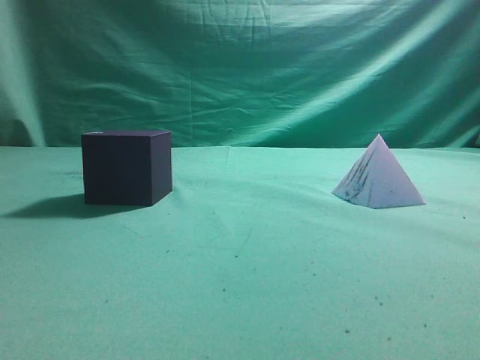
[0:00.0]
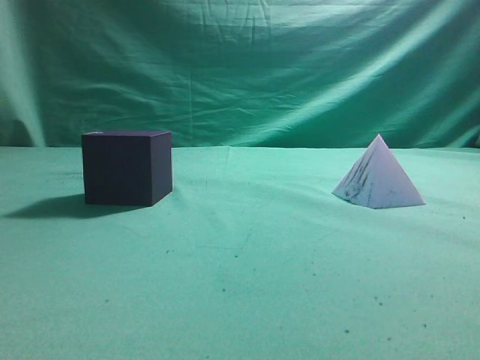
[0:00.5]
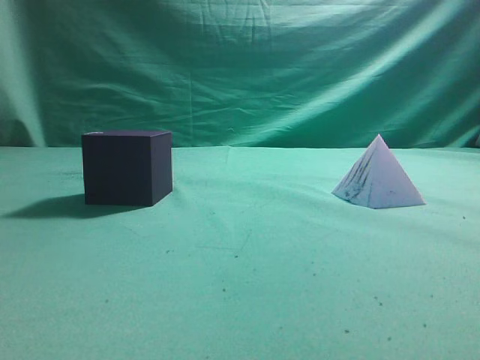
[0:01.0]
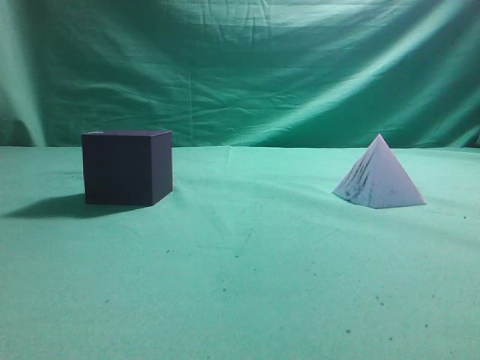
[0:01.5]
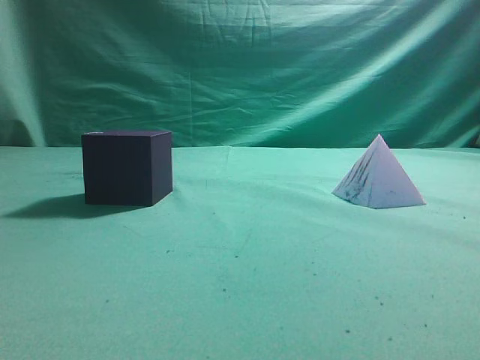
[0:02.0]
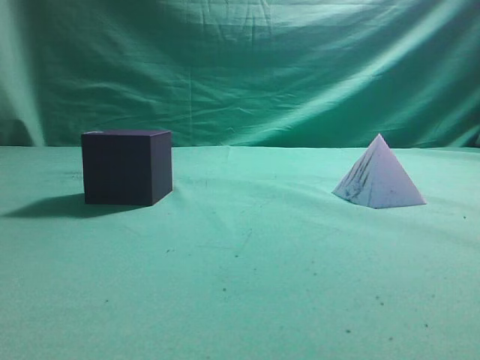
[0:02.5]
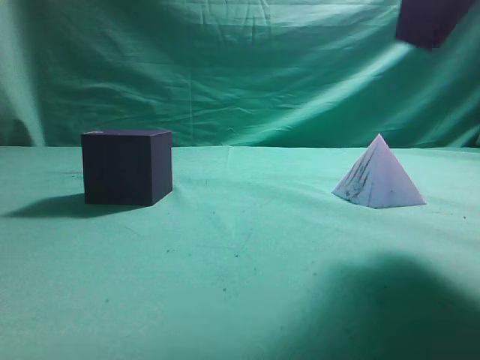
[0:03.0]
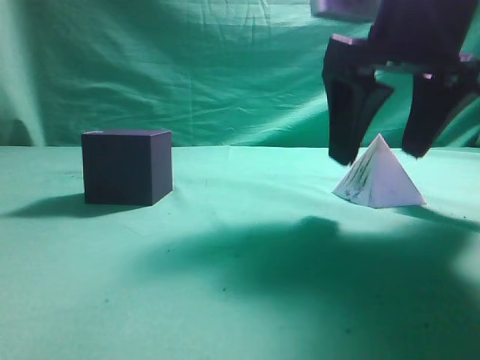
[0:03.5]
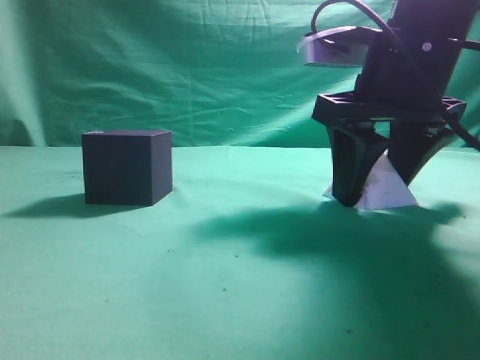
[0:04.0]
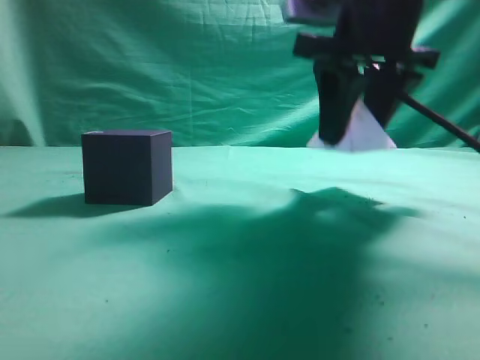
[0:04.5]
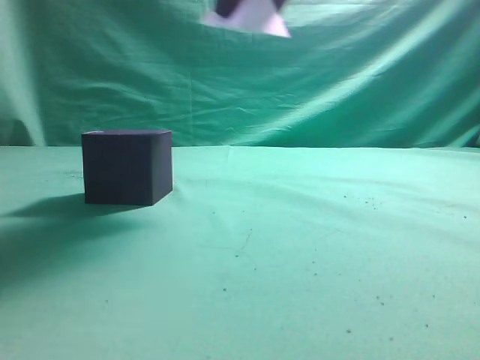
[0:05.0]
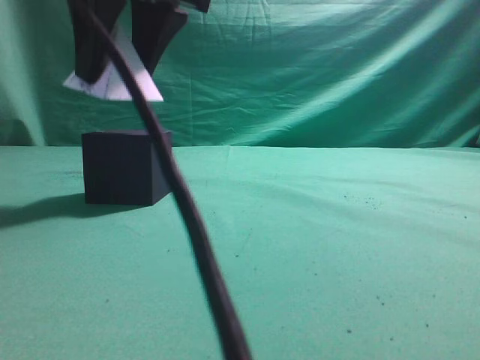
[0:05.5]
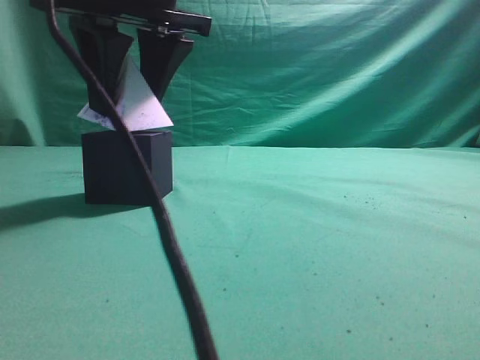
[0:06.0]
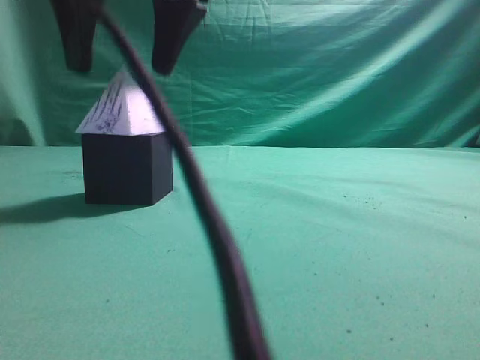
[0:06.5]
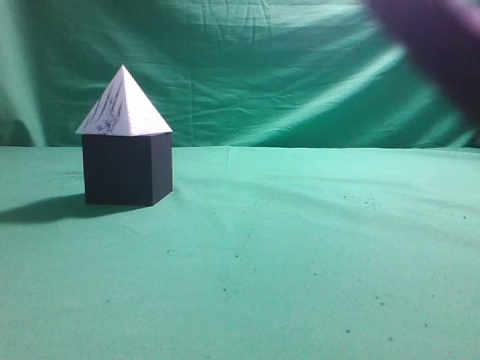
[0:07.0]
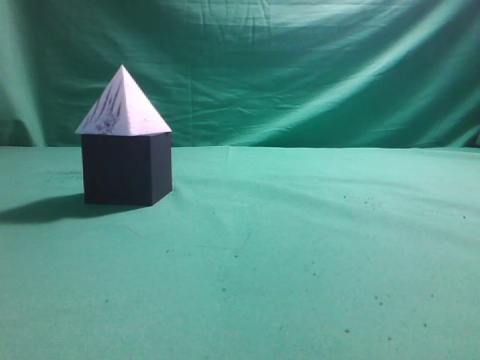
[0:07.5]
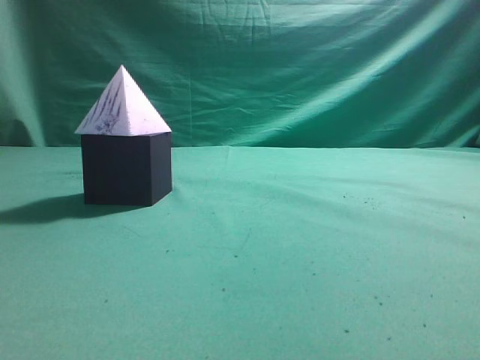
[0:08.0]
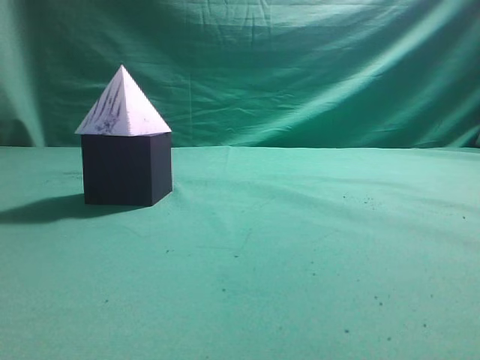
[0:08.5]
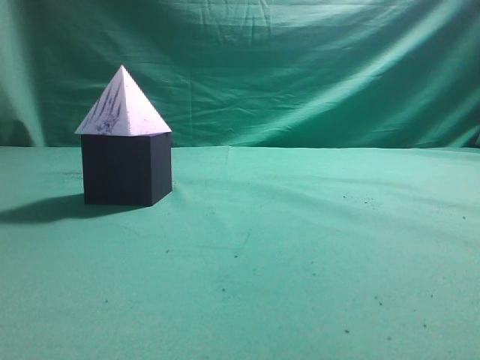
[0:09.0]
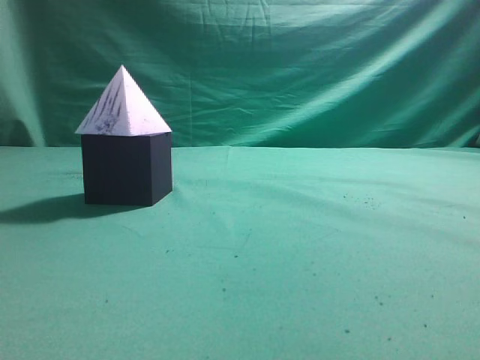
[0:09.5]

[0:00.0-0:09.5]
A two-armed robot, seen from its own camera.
Task of the whole recording: pick up the square pyramid from the table and place it on the cube block.
Step, 0:00.0 to 0:04.0: Grasp the triangular block.
Step, 0:04.5 to 0:06.5: Place the block onto the cube-shaped block.
0:02.0 to 0:04.0: The right gripper shifts some 30 cm forward, downward and to the left, and opens up.
0:04.0 to 0:05.5: The right gripper is displaced to the left and upward by some 25 cm.
0:05.5 to 0:07.5: The right gripper is displaced to the right, upward and backward by approximately 25 cm, and closes.
